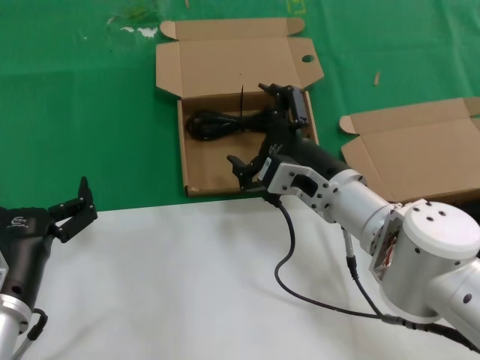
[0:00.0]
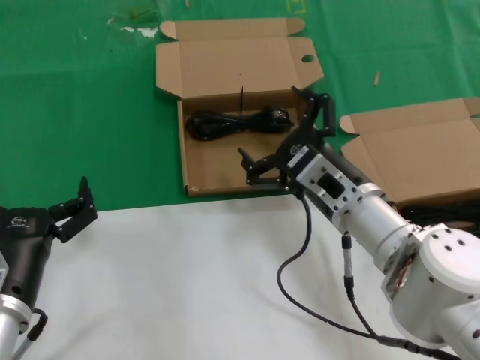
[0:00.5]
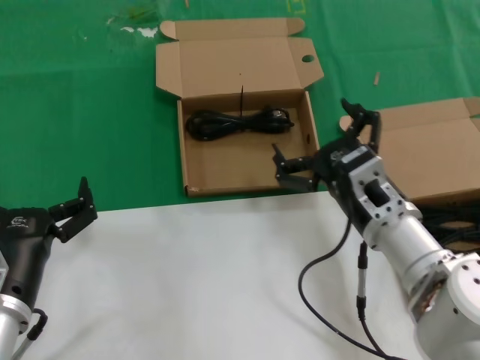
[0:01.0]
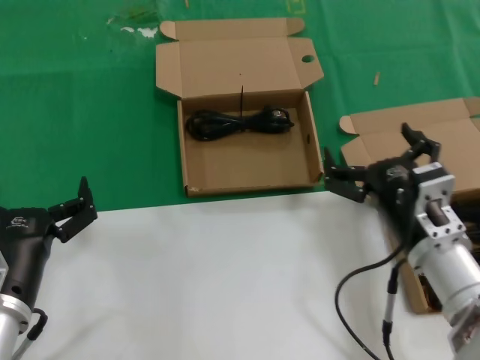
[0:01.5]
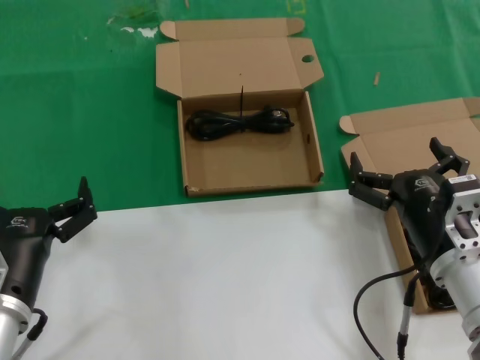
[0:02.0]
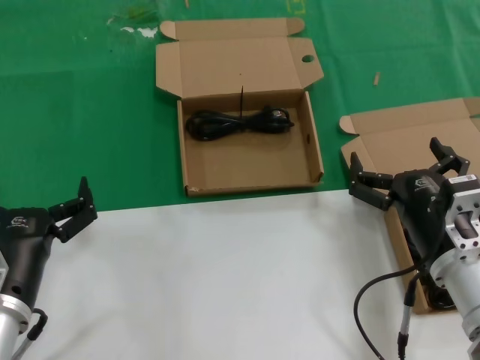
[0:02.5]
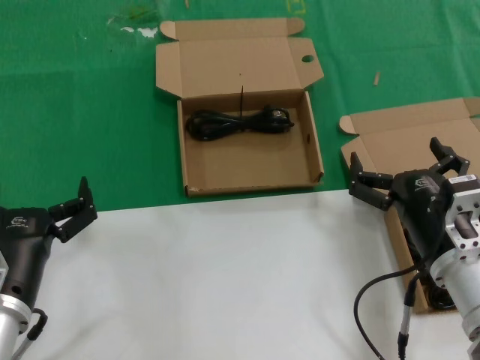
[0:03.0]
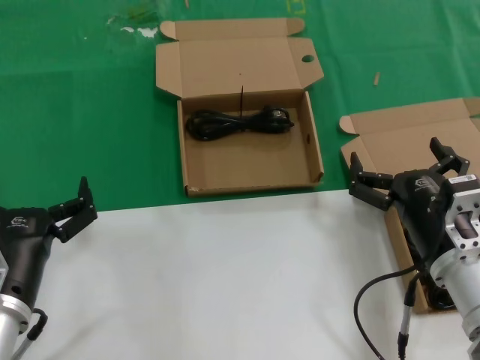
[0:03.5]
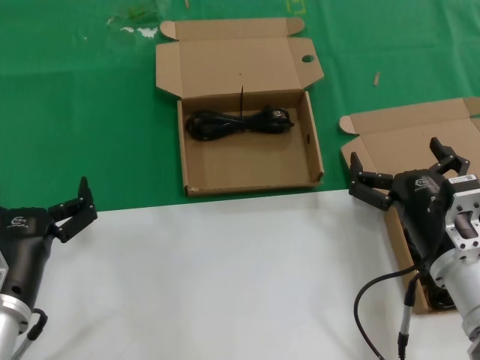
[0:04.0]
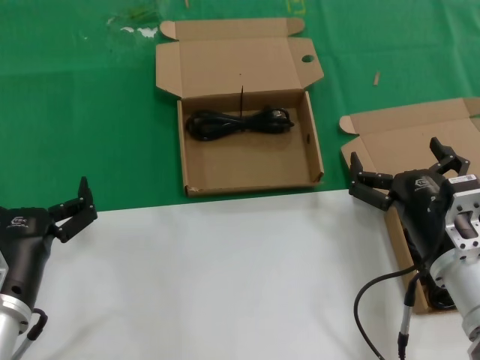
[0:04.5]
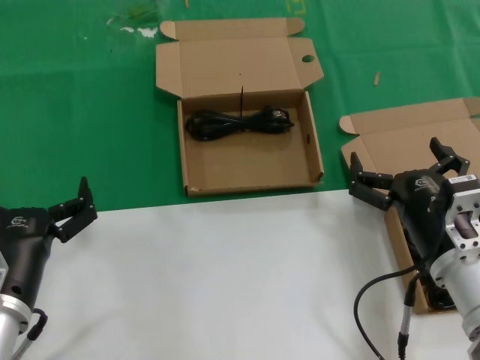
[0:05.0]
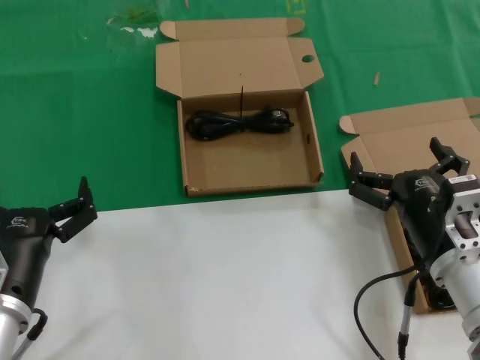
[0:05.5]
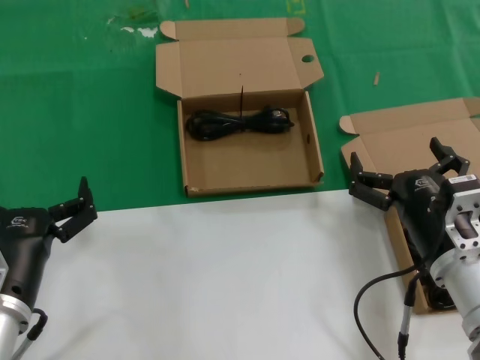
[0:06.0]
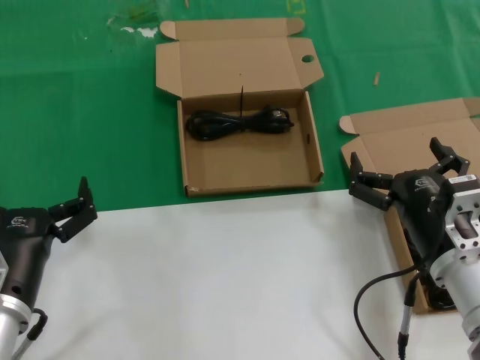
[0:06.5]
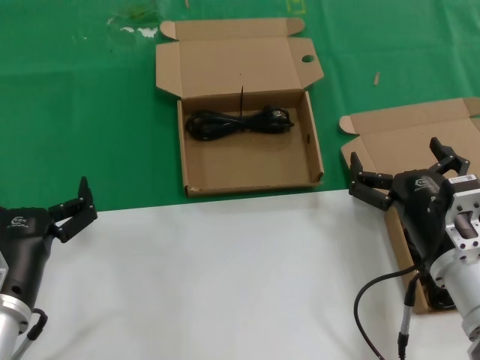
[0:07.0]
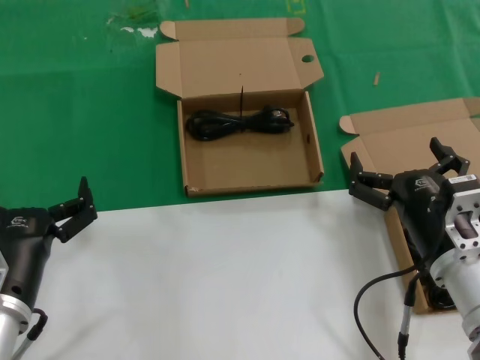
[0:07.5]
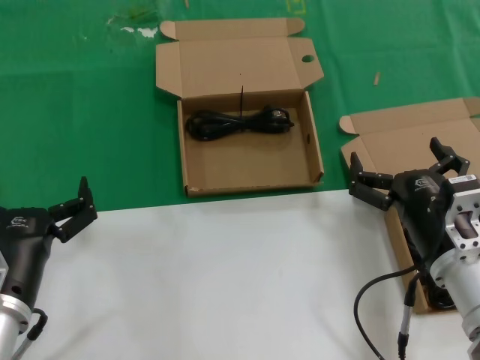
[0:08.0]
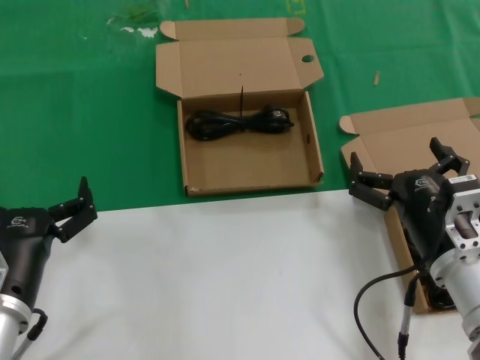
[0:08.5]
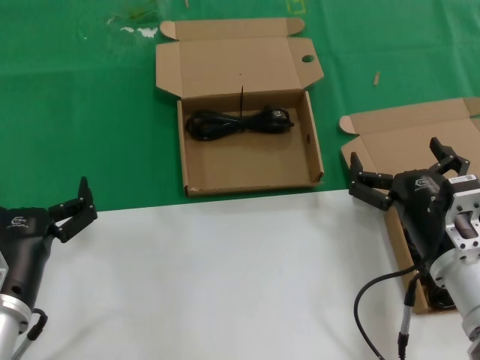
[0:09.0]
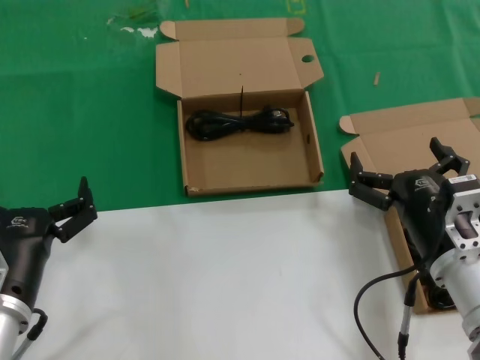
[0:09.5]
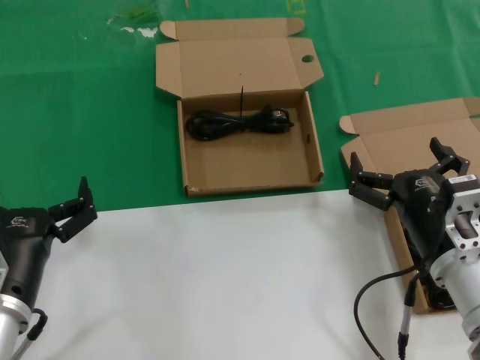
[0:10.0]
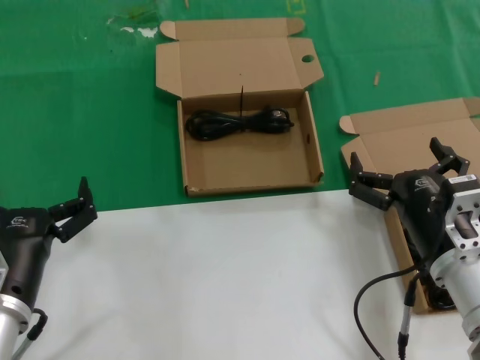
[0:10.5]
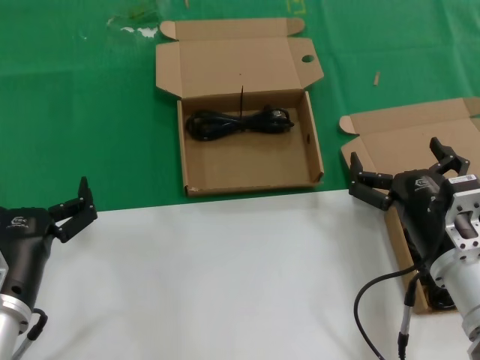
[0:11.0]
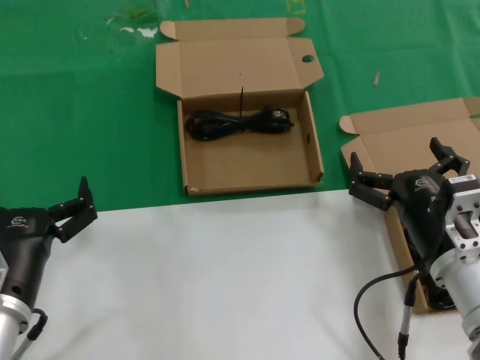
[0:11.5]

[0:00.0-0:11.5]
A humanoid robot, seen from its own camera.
Task of the whole recording: take the parts from the box containing them and put them into an empty box.
0:00.0 to 0:02.0: The right hand travels backward and to the right by roughly 15 cm.
0:02.0 to 0:11.5: Neither hand changes place.

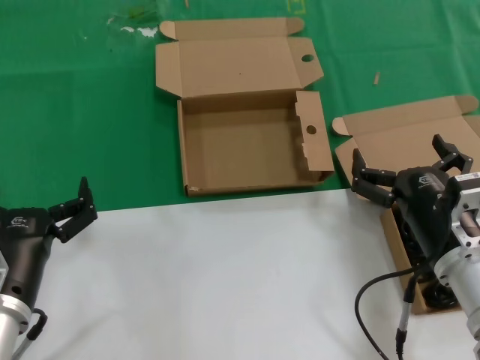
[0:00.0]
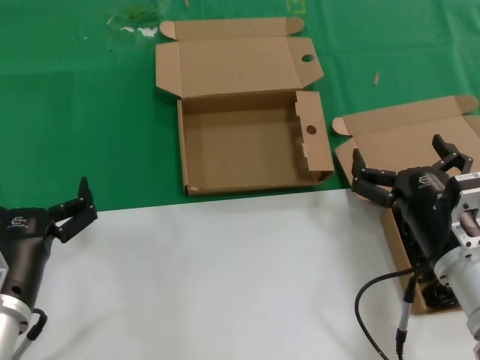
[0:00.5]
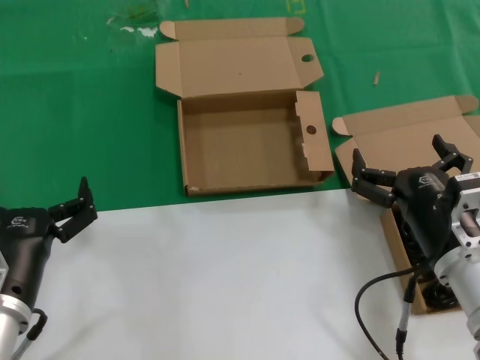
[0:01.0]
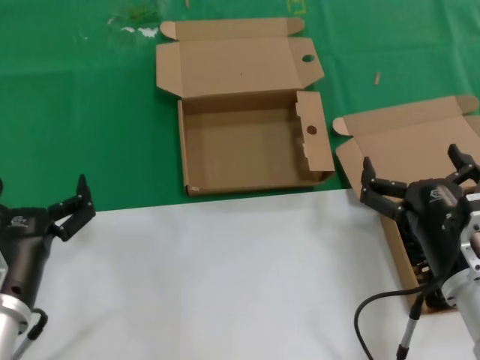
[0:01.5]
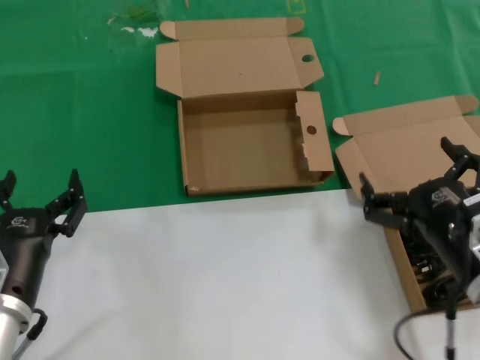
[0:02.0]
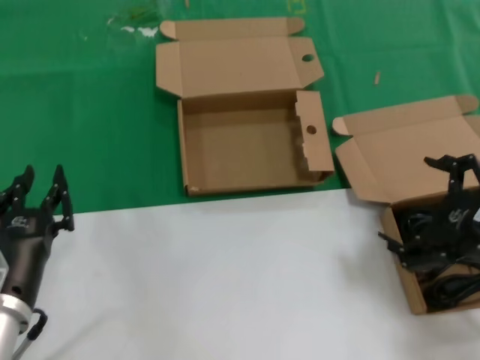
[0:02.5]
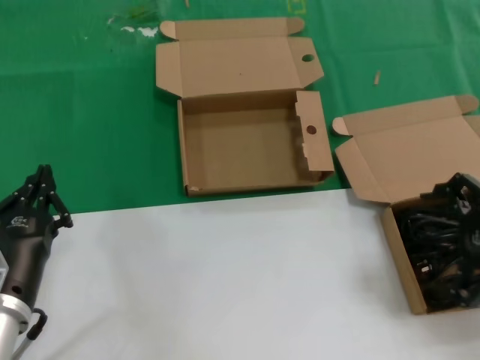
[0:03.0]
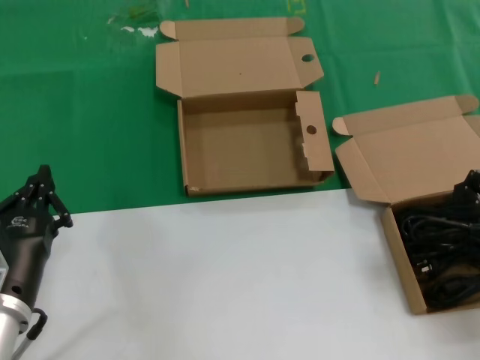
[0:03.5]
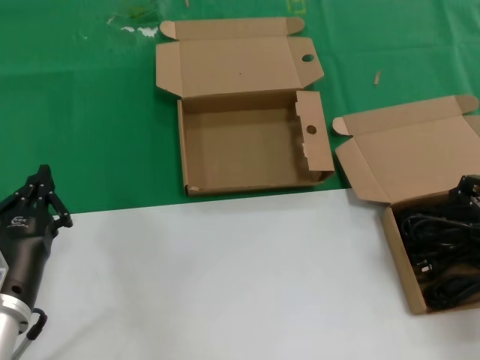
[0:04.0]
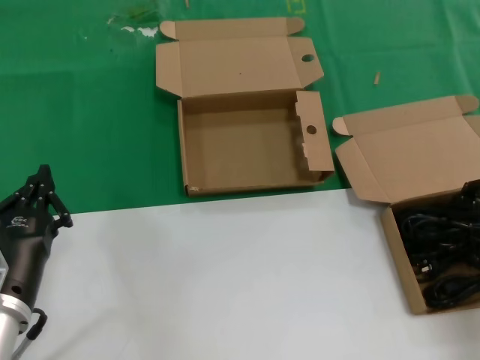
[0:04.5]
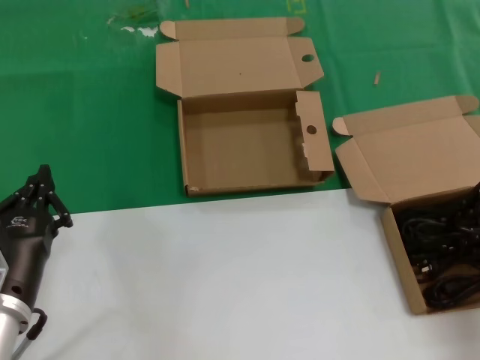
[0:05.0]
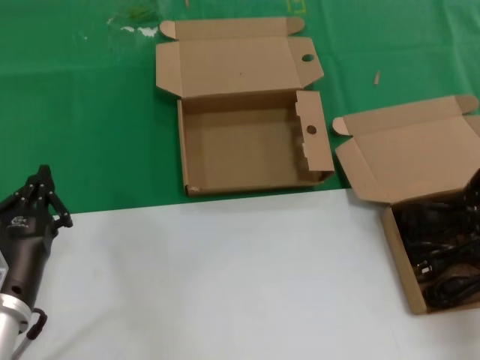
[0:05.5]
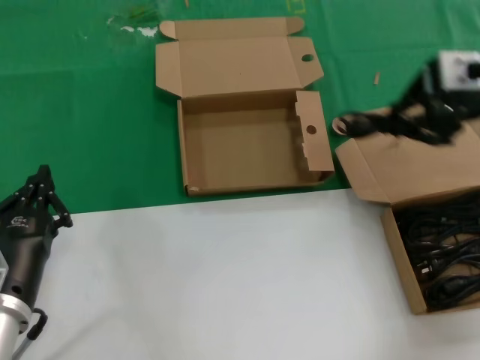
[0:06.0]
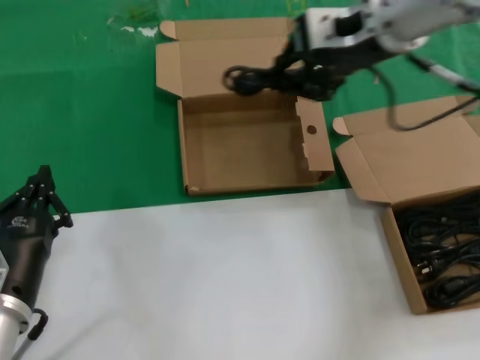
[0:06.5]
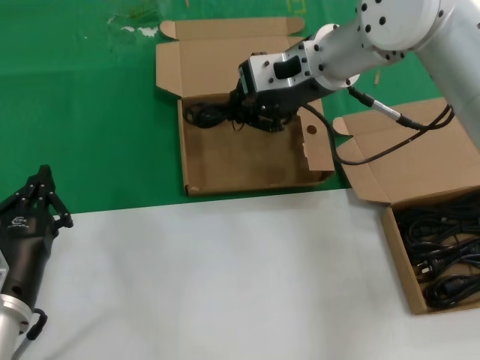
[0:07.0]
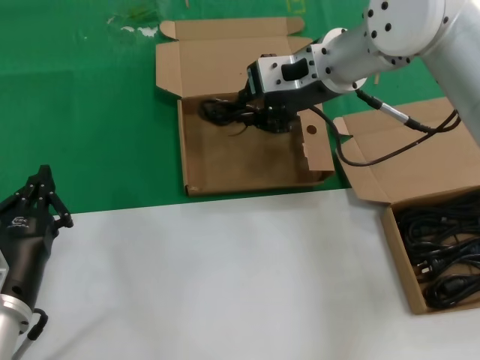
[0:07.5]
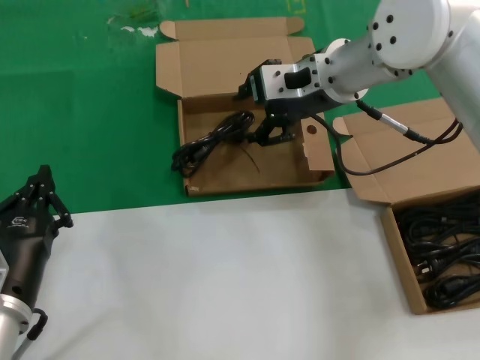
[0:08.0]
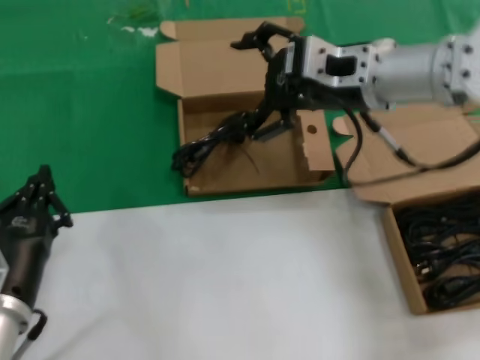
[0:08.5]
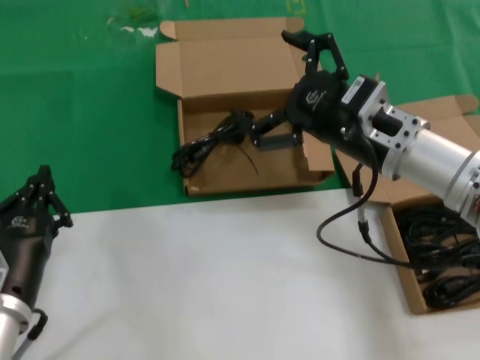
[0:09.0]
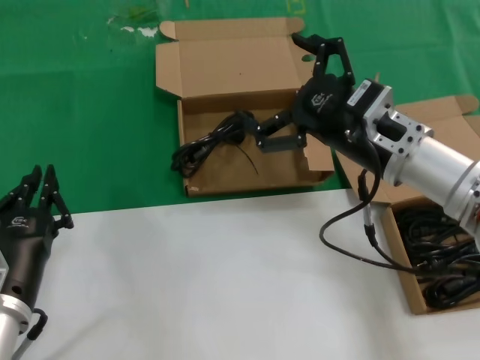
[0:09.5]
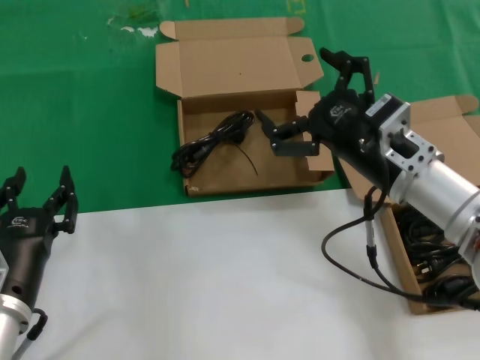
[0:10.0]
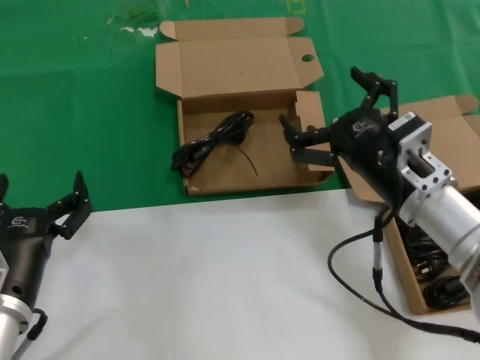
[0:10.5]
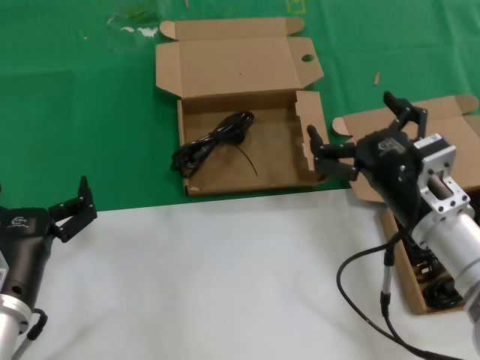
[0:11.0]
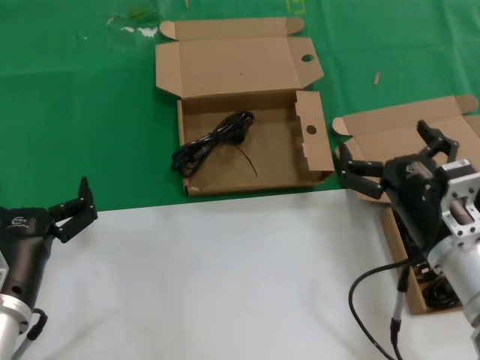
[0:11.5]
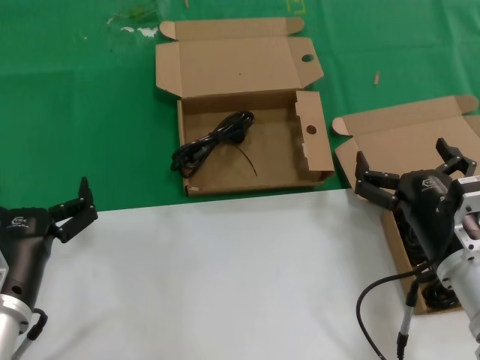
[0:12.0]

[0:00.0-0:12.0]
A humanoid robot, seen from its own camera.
Task of the whole recording: take the parts from the box containing them and put them into an empty box.
Step, 0:00.0 to 0:05.0: Grasp the data cable.
Step, 0:05.5 to 0:07.5: Place the data cable in the another box.
0:00.0 to 0:02.0: The hands stay close to where they were, moving slightly.
0:02.0 to 0:04.0: The right hand travels upward, to the right and forward by some 20 cm.
0:04.0 to 0:06.0: The right hand is displaced upward, to the left and forward by approximately 15 cm.
0:06.0 to 0:08.0: The right hand shifts roughly 20 cm to the left and forward.
0:08.0 to 0:10.0: The right hand goes approximately 20 cm backward, downward and to the right.
0:10.0 to 0:12.0: The right hand travels downward and backward by roughly 10 cm.

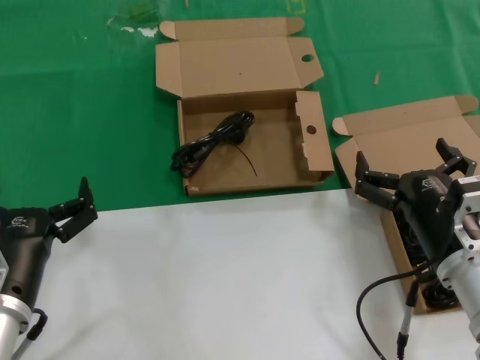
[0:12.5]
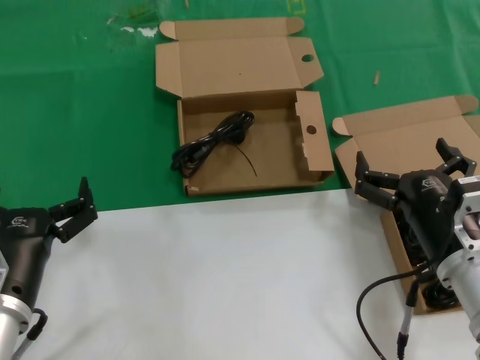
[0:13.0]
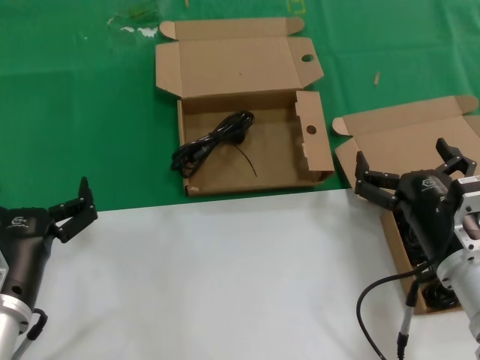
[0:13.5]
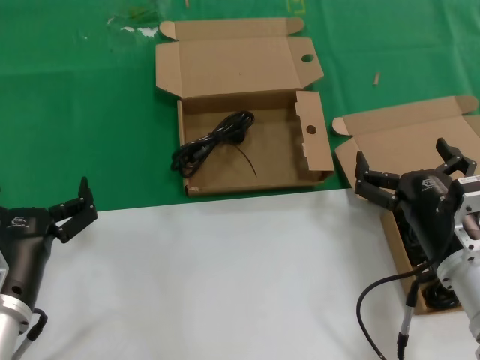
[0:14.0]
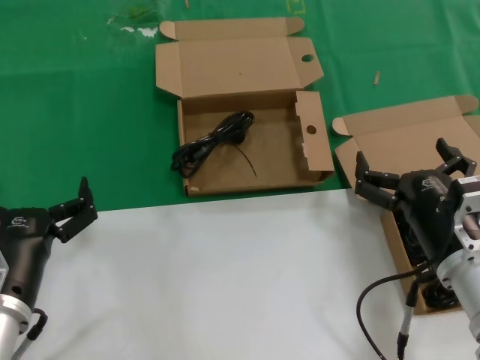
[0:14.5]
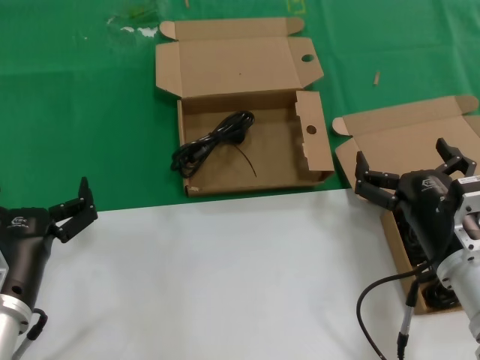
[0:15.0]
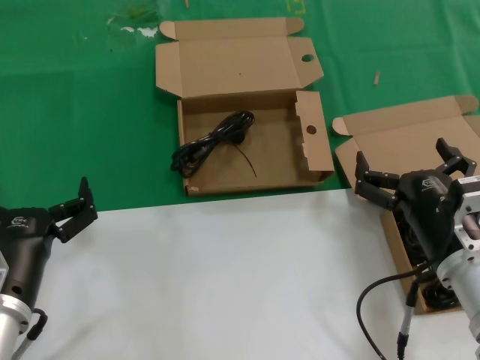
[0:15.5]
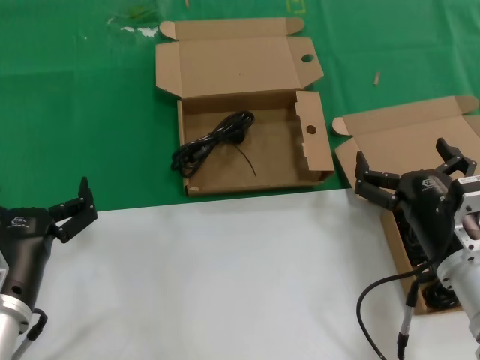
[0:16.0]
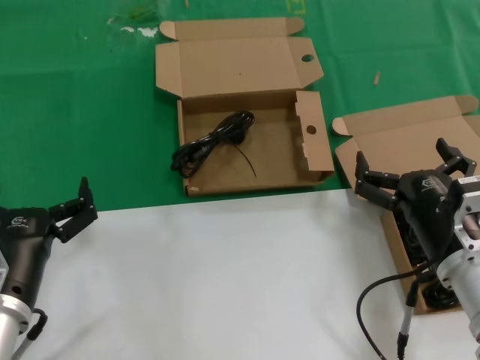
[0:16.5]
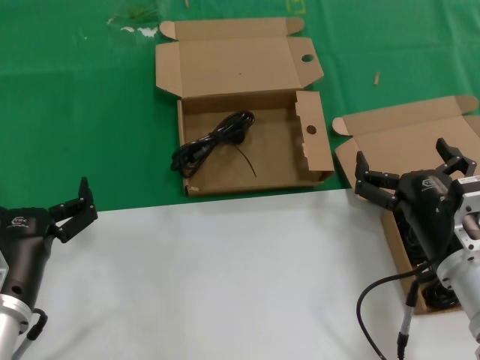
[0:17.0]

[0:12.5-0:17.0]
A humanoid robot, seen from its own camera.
Task of the whole recording: take the parts from the box containing them and put them into an empty box.
0:12.5 to 0:17.0: The two hands keep their place.
